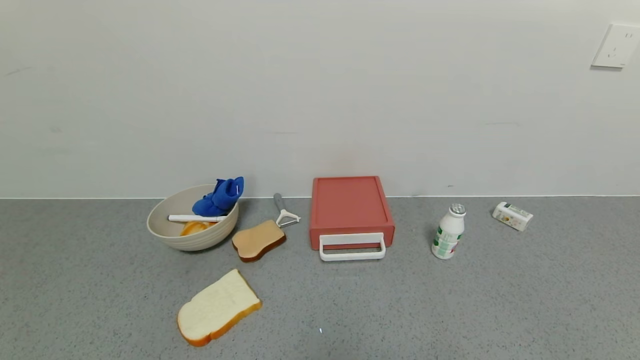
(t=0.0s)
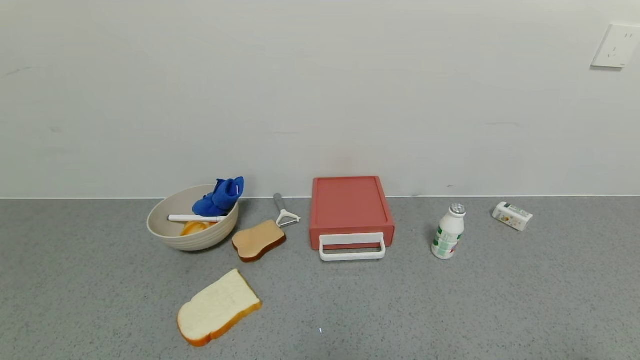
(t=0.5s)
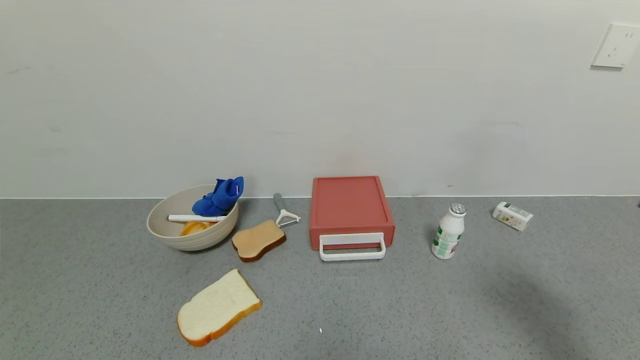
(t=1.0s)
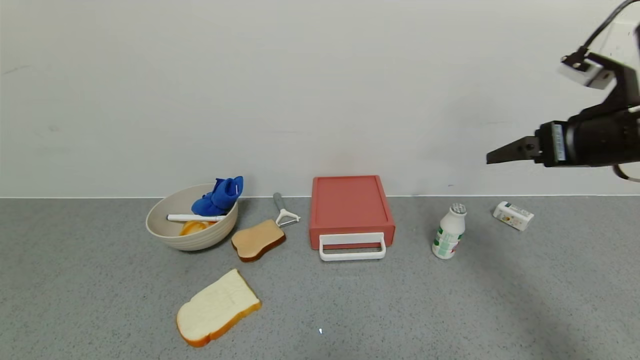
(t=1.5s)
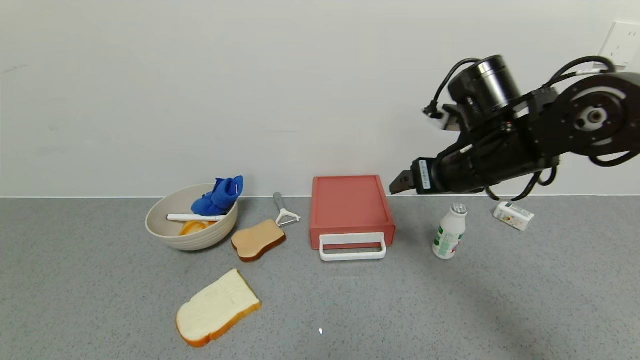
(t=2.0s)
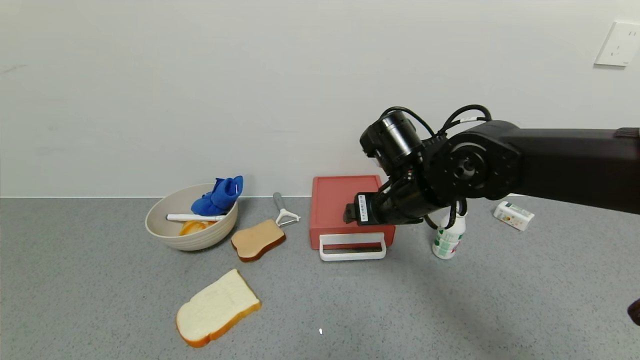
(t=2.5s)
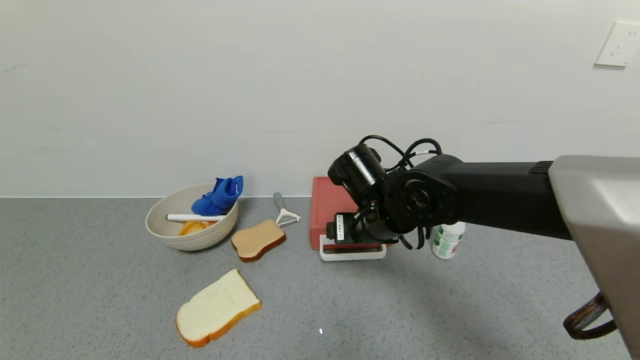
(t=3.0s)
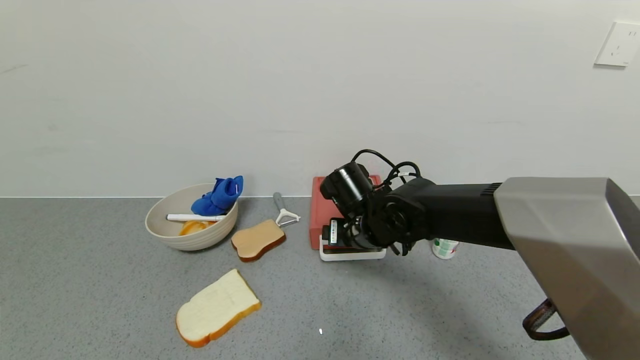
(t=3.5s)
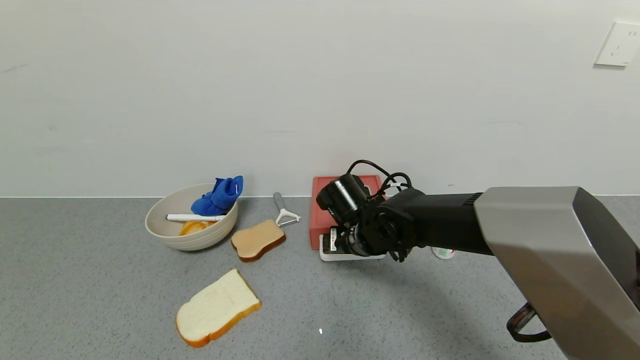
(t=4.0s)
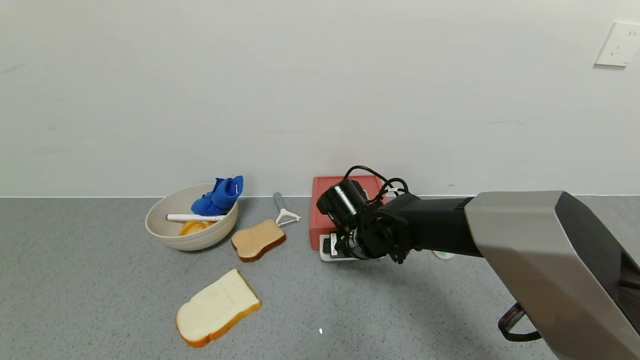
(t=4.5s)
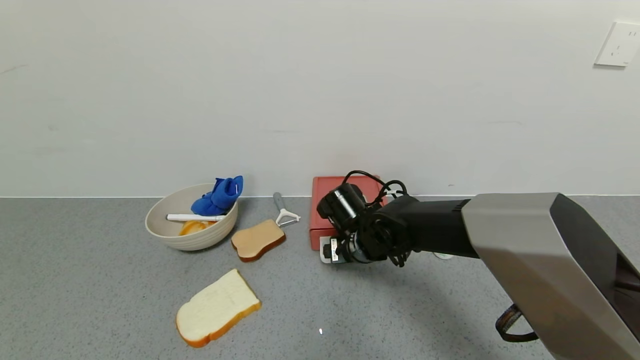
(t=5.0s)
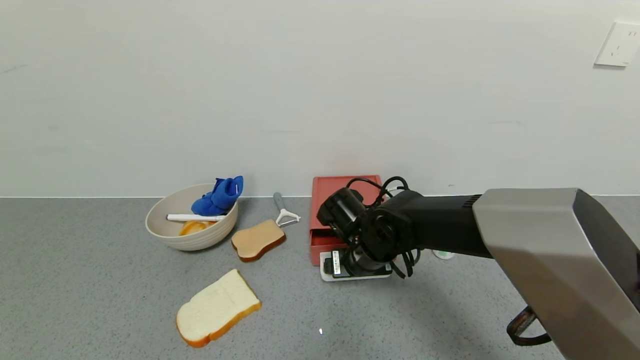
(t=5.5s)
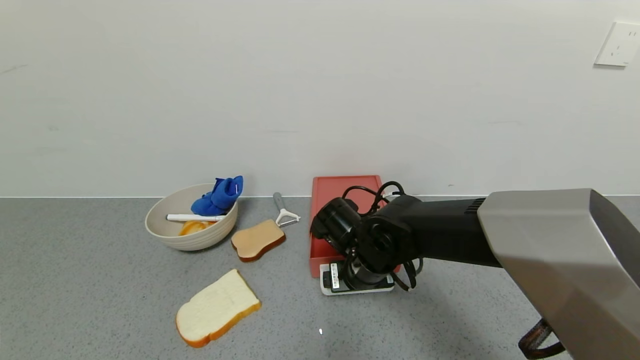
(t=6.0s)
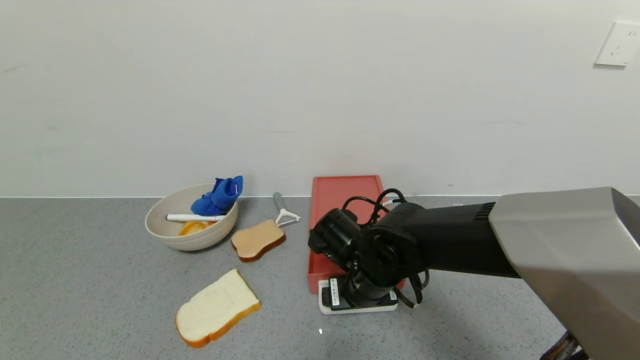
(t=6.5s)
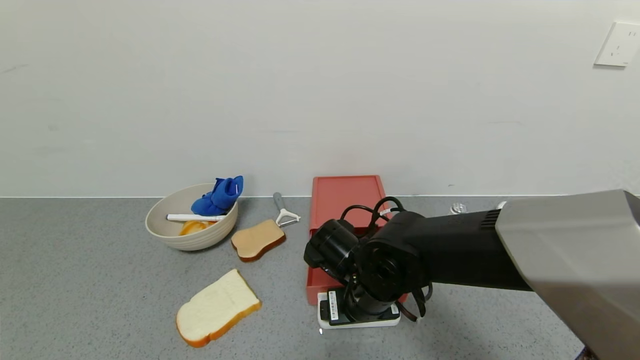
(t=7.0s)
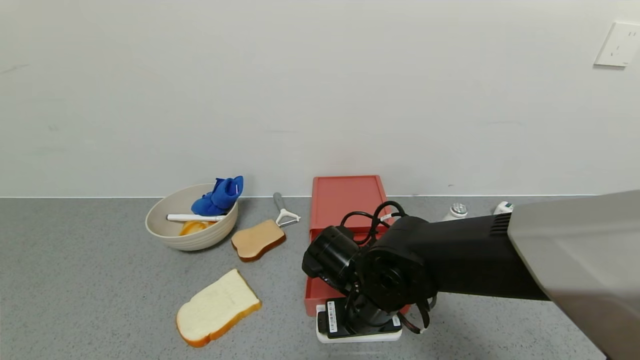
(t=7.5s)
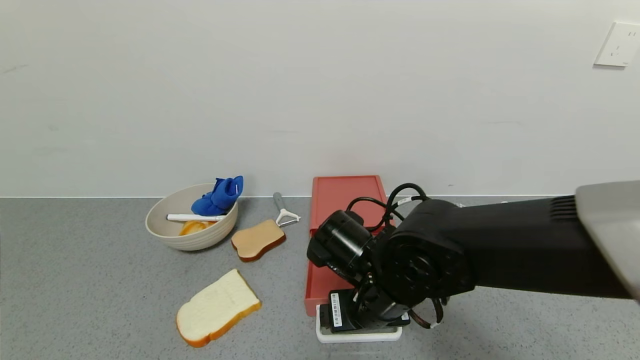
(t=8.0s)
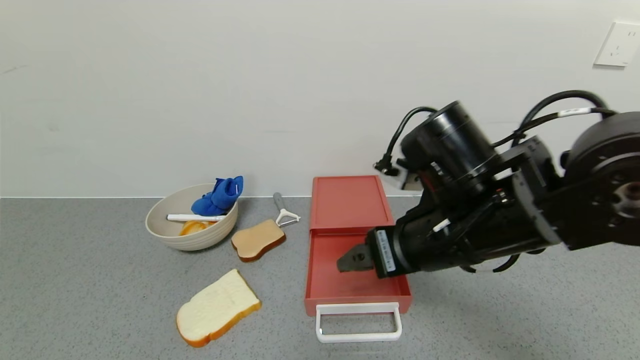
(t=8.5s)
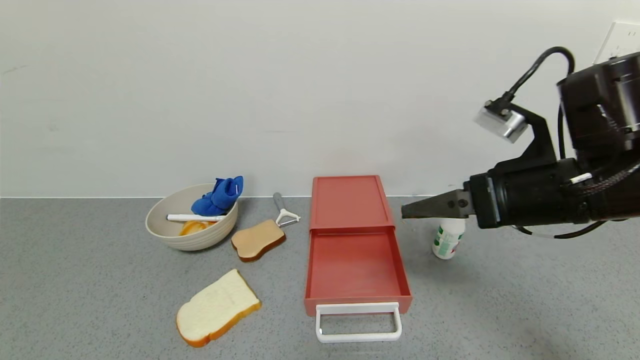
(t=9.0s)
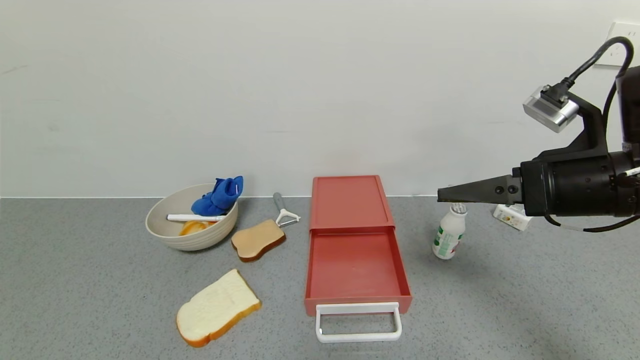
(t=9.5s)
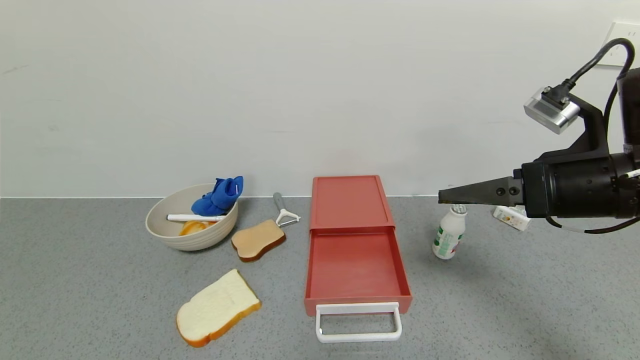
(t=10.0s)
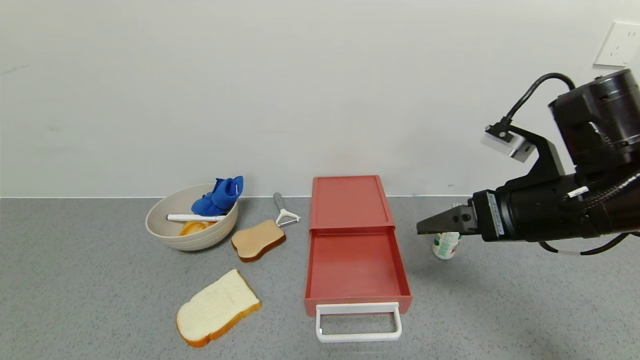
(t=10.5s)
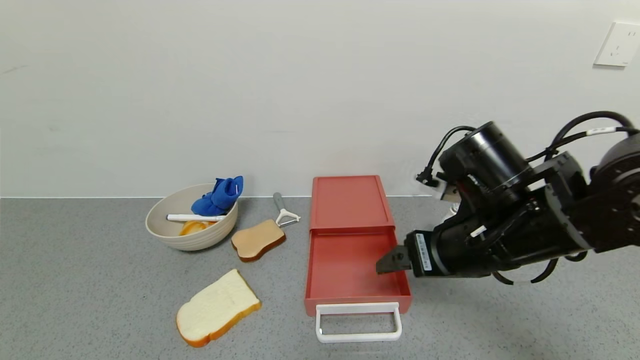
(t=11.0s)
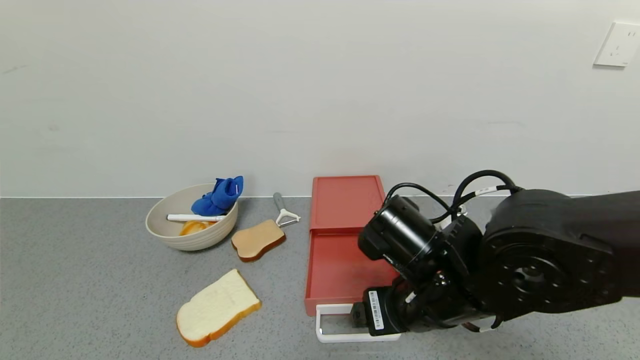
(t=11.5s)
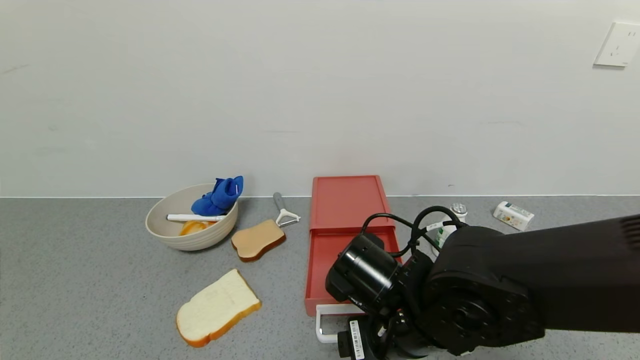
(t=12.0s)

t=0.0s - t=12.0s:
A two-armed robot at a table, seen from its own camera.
Task of the whole recording: use the gripper to open the drawer and close the red drawer.
Step, t=0.0s - t=7.0s: Open the red drawer with the right gripper.
t=0.0s - t=2.0s: The right gripper goes roughly 30 cm forward and to the left.
t=2.0s - t=4.0s: The right gripper travels downward and to the left by roughly 20 cm.
t=4.0s - t=6.0s: The grippers stay close to where they were, moving slightly.
t=6.0s - t=8.0s: The right gripper moves backward, some 5 cm.
t=8.0s - t=10.0s: The right gripper travels to the right and upward by roughly 25 cm.
t=10.0s - t=12.0s: The right gripper is displaced to the left and downward by some 25 cm.

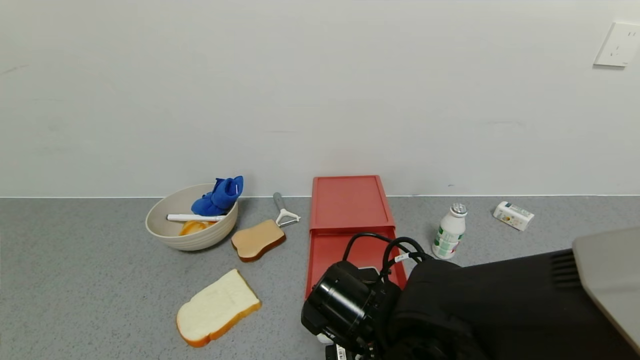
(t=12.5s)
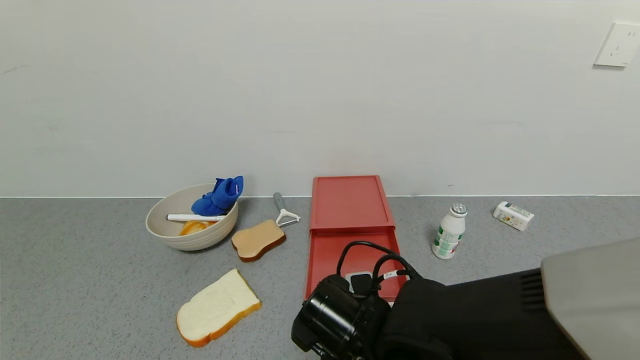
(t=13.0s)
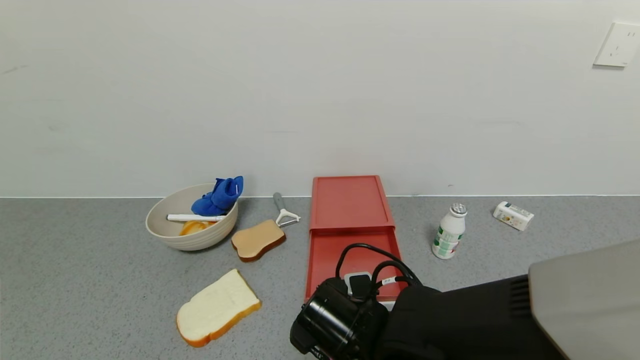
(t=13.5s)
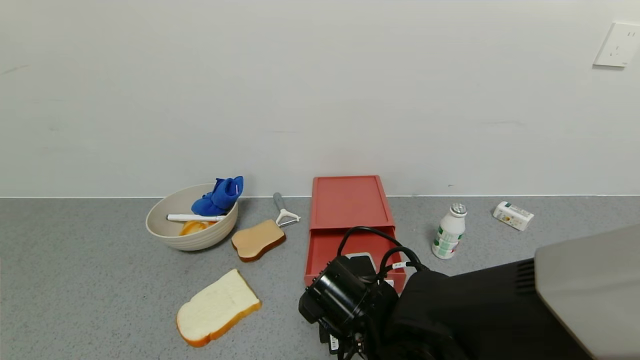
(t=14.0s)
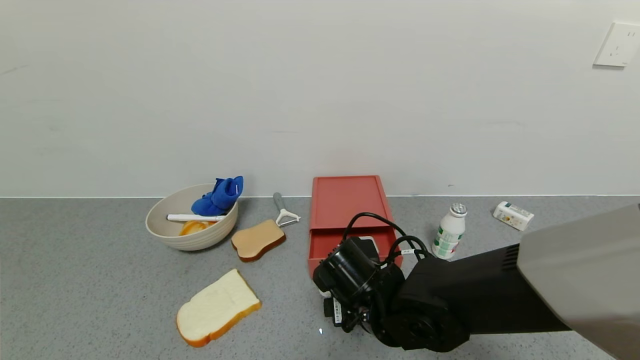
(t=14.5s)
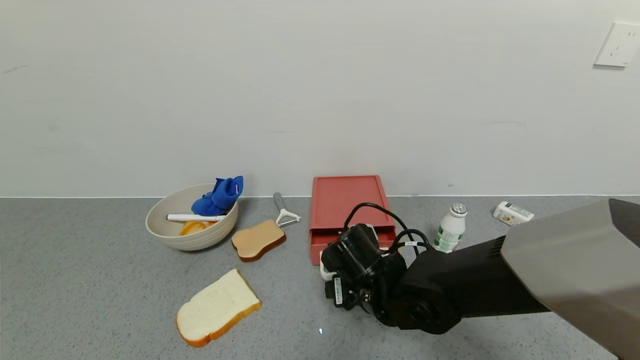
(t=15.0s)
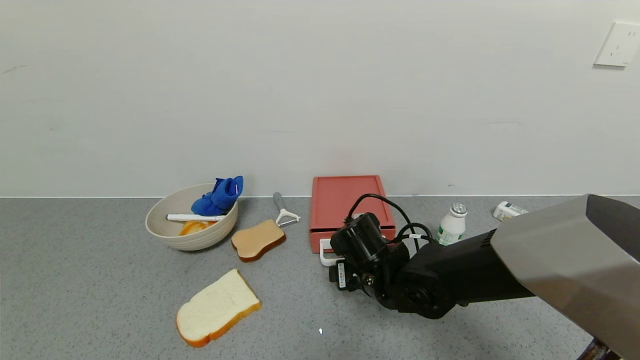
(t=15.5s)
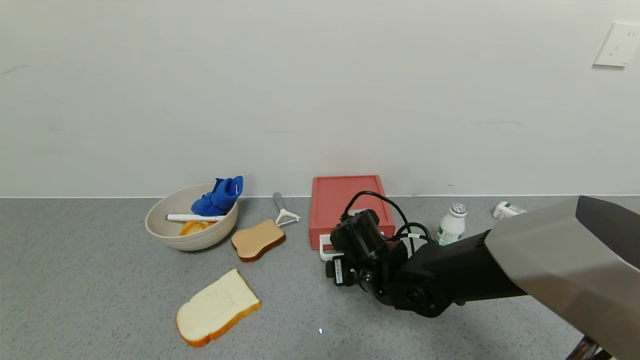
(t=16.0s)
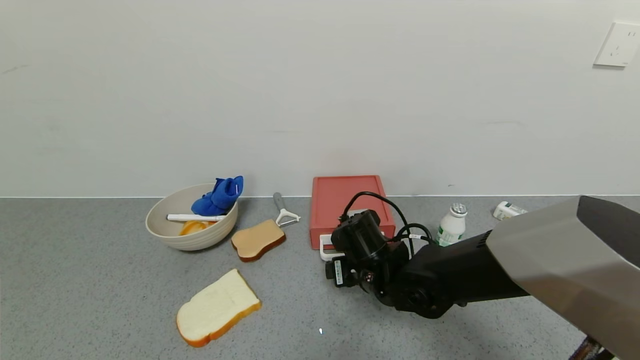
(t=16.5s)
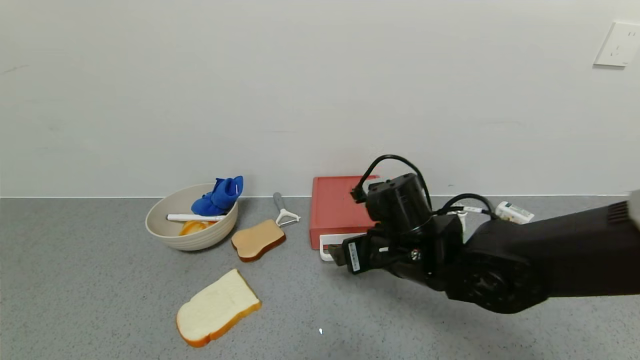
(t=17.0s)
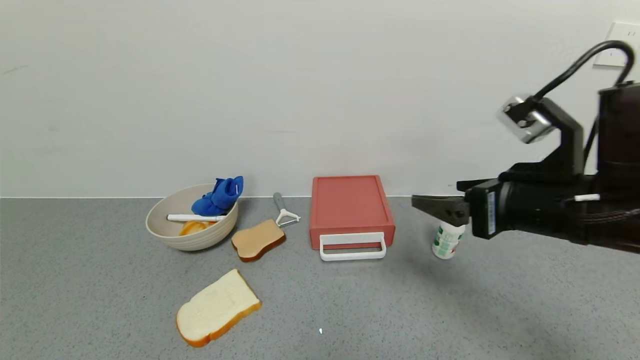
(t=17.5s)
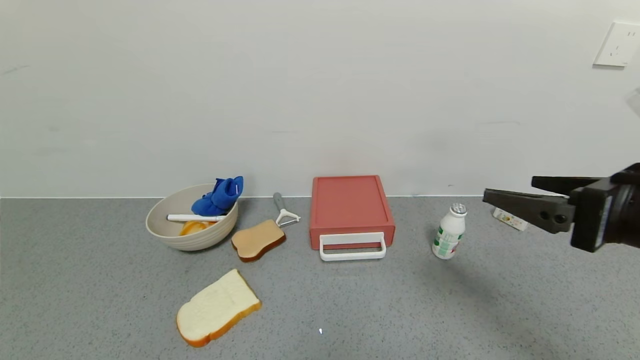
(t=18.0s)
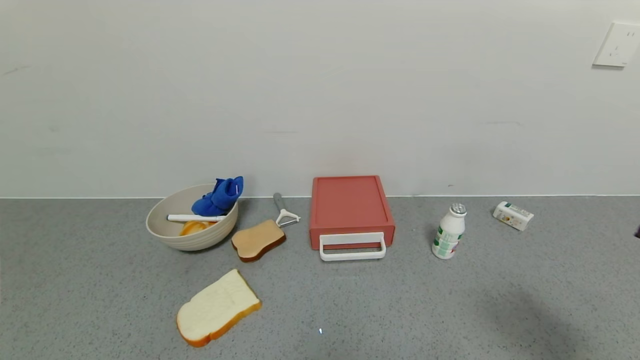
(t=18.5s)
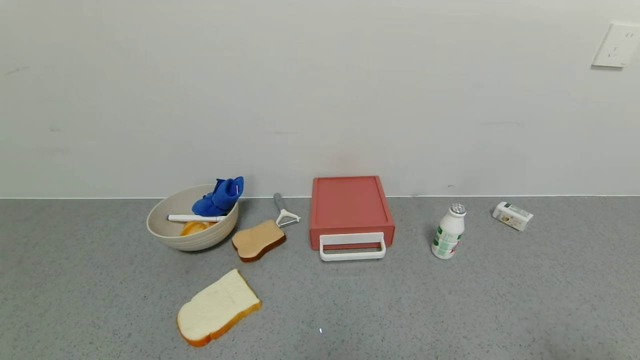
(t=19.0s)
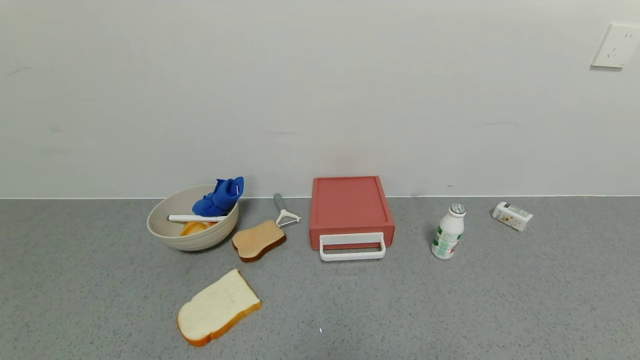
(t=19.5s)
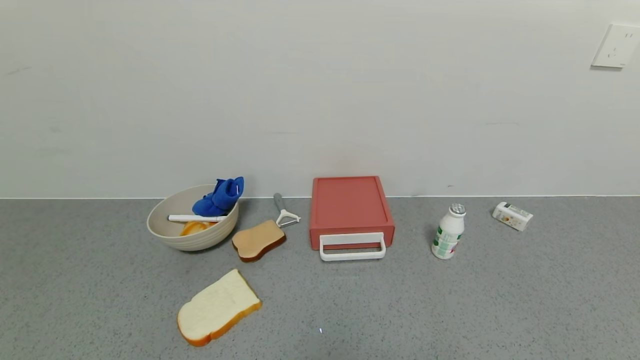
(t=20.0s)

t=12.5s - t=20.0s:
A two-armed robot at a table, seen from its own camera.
Task of the whole recording: use the gripper to open the drawer and close the red drawer.
Step, t=12.5s - t=14.5s: Close the red drawer with the right gripper.
t=12.5s - t=14.5s: The right gripper heads forward, covering approximately 5 cm.
t=14.5s - t=16.5s: The right gripper shifts about 5 cm forward.
t=16.5s - t=18.0s: The right gripper travels to the right, upward and backward by roughly 35 cm.
t=18.0s - t=20.0s: The right gripper shifts about 25 cm backward, downward and to the right.
